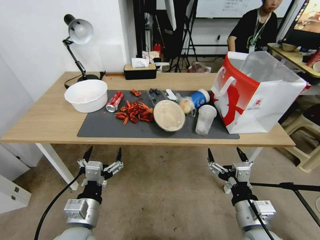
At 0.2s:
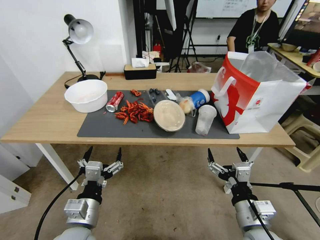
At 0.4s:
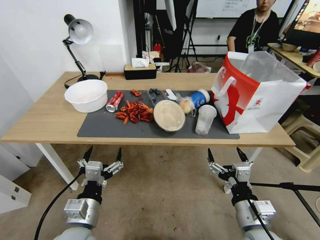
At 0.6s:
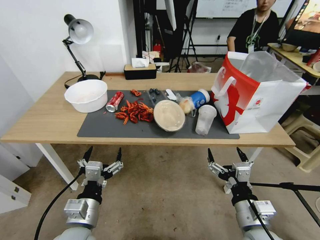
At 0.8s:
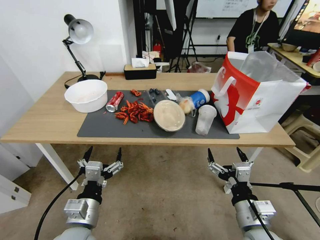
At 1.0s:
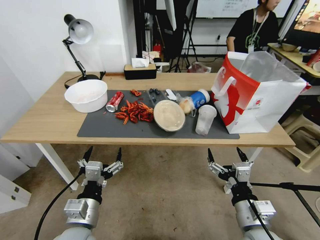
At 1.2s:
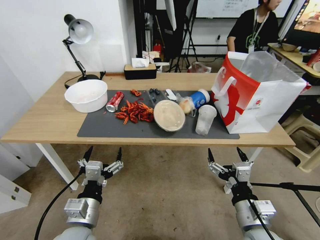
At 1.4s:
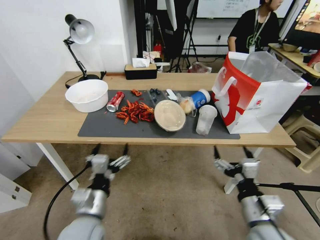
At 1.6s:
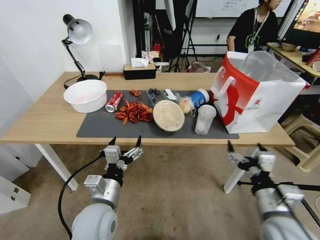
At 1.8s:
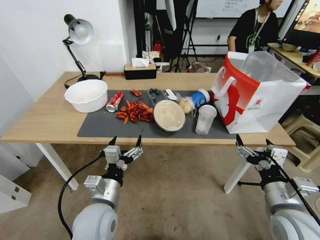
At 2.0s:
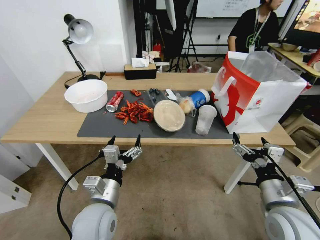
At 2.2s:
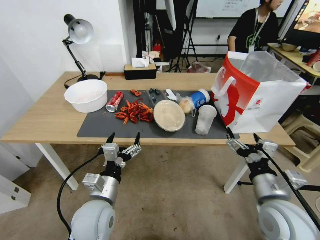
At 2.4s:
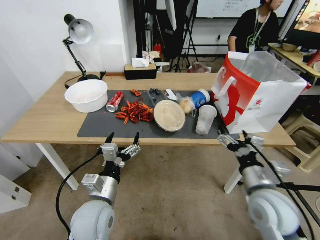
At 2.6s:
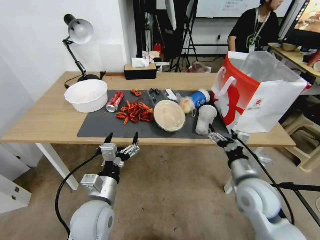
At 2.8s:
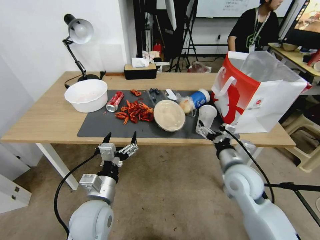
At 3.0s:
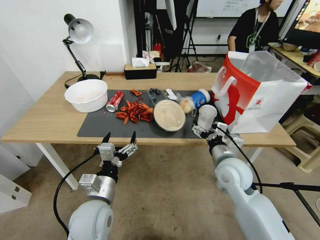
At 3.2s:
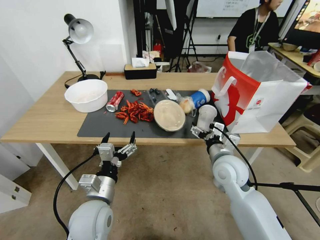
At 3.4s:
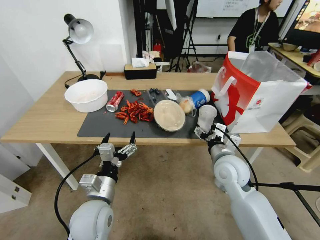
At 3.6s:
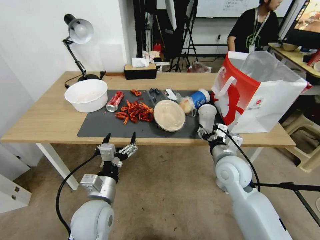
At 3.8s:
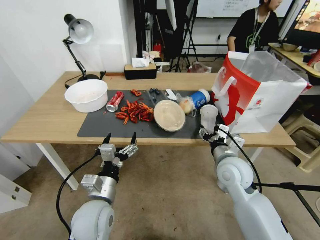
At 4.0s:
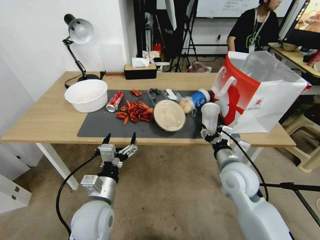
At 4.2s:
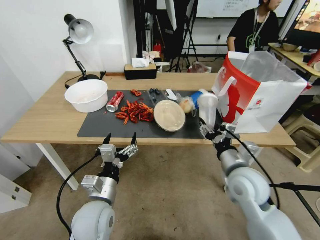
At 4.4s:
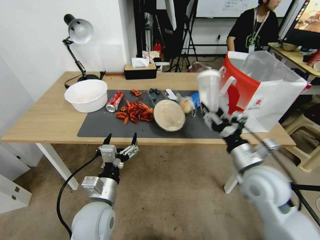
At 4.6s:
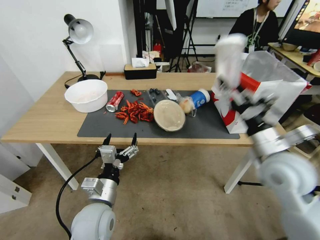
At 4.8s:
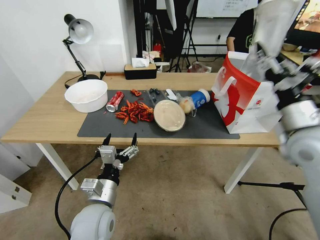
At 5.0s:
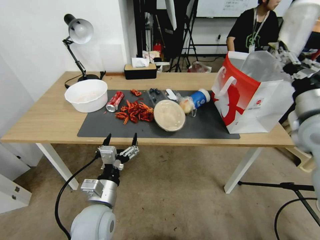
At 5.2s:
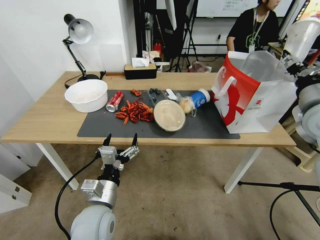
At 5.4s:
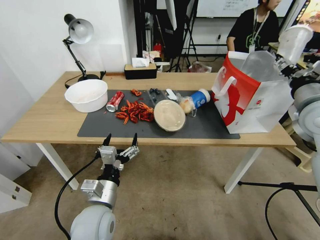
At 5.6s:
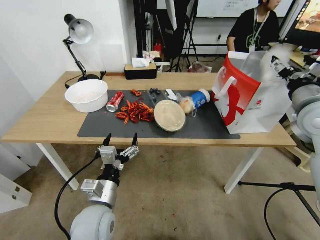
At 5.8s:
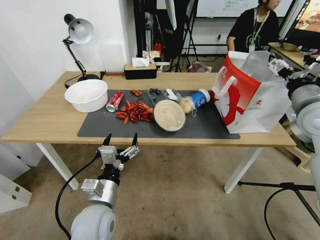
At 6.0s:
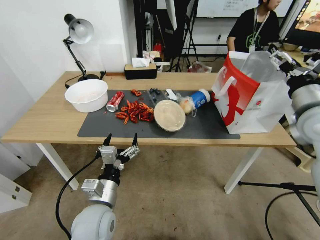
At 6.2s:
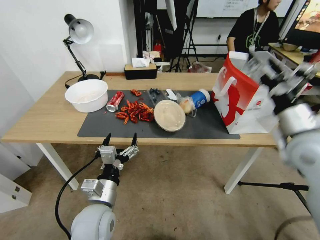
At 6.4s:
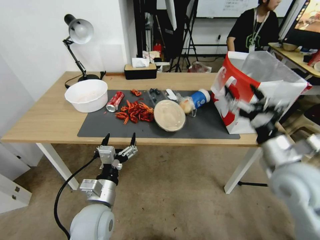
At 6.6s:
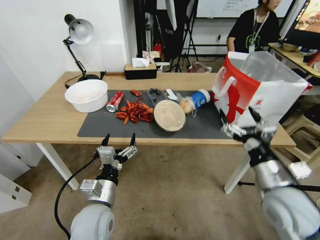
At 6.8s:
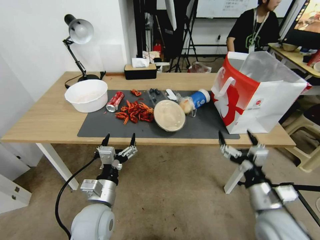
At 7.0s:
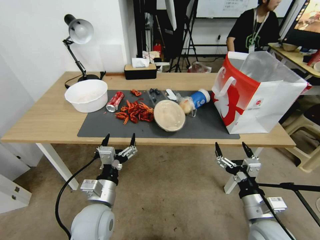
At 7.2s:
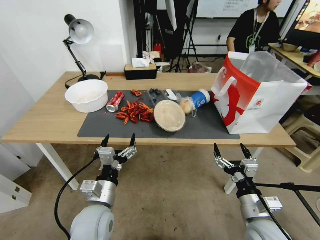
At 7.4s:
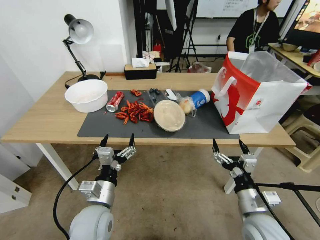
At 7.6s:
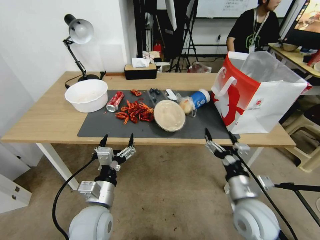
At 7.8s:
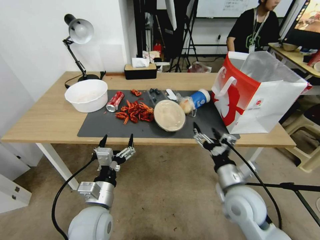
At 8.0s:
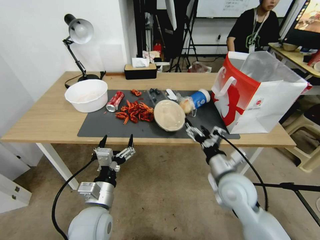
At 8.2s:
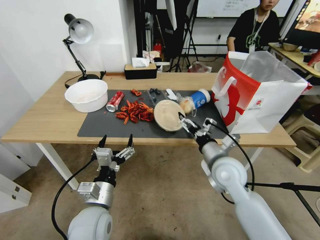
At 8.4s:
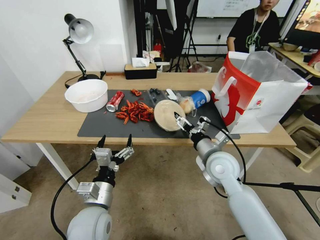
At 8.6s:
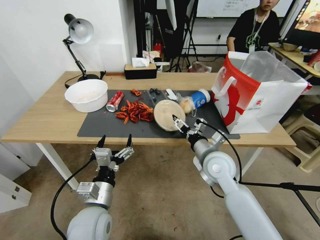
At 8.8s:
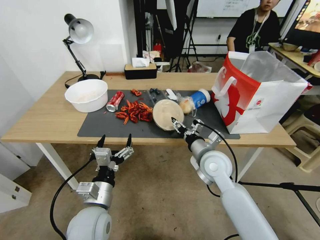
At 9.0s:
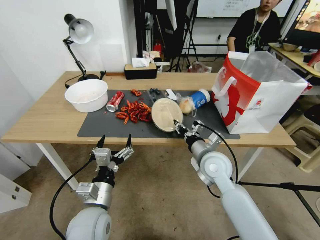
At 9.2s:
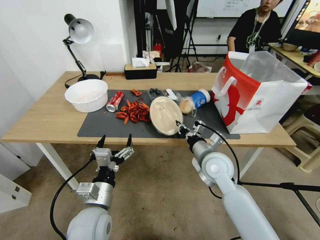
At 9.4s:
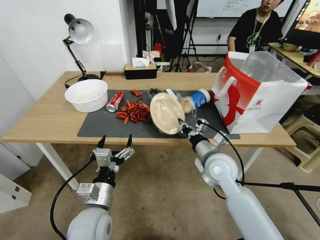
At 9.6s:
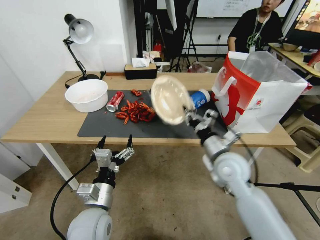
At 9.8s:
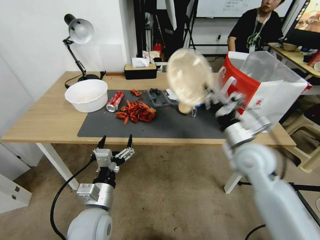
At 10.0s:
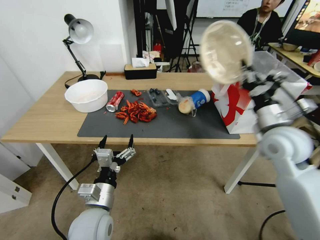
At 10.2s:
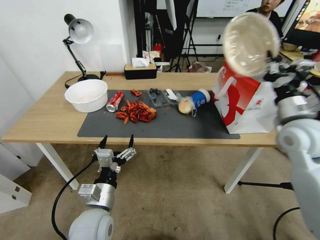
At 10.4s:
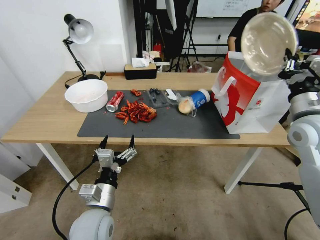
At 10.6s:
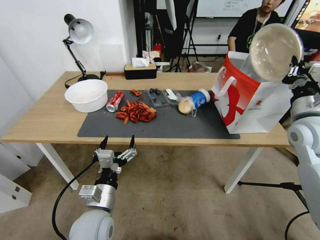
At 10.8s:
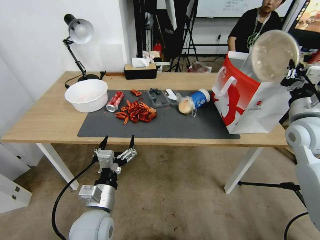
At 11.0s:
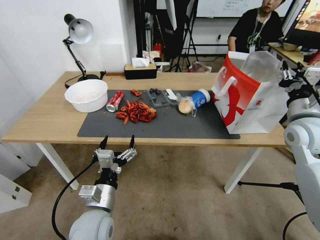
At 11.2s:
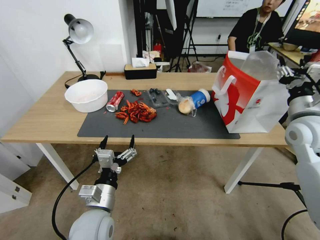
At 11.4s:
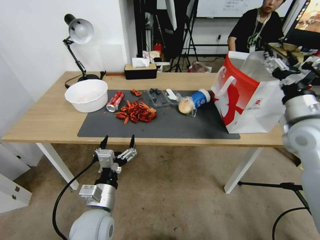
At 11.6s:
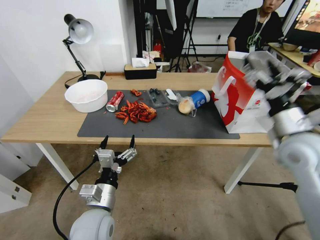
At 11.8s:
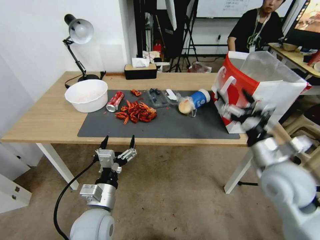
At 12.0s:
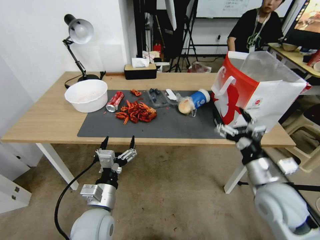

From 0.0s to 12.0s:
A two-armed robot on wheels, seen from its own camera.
From 1.6s to 3.0s: The right gripper moves forward and to the left, approximately 15 cm.
From 3.0s to 4.4s: The right gripper changes place by about 5 cm, and closes up.
From 4.4s to 6.0s: The right gripper travels upward, to the right and forward by approximately 20 cm, and opens.
From 6.0s to 7.6s: The right gripper heads downward, backward and to the left, covering approximately 30 cm.
From 7.6s to 9.0s: The right gripper travels forward and to the left by some 15 cm, and closes its fingers.
From 9.0s to 10.4s: The right gripper shifts roughly 25 cm to the right and upward.
From 10.4s to 12.0s: The right gripper moves downward, backward and to the left, some 20 cm, and opens up.

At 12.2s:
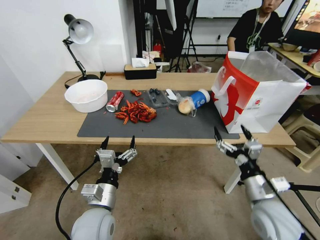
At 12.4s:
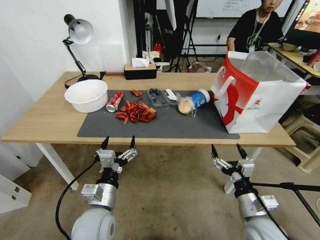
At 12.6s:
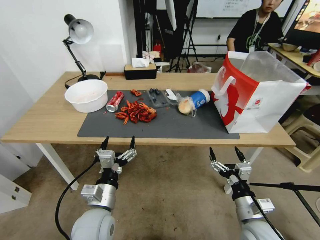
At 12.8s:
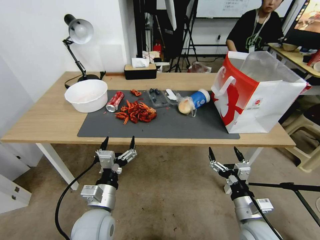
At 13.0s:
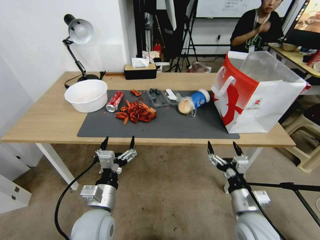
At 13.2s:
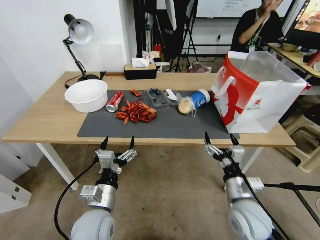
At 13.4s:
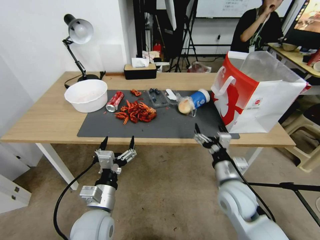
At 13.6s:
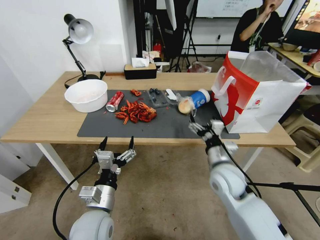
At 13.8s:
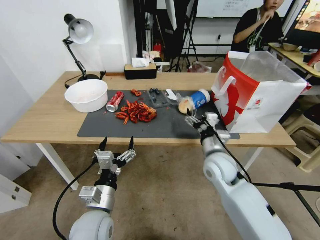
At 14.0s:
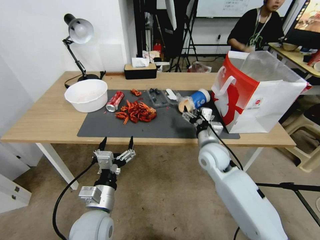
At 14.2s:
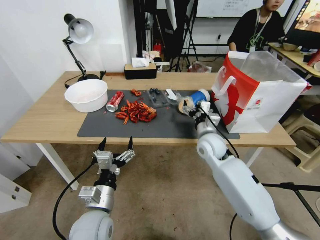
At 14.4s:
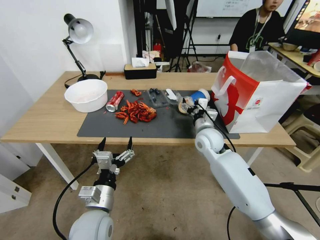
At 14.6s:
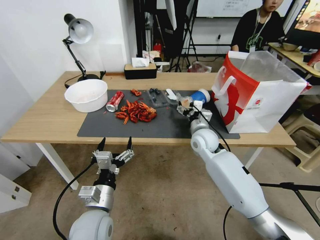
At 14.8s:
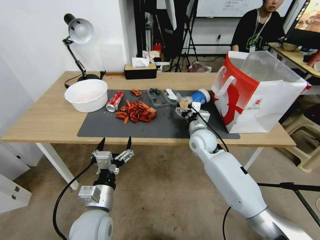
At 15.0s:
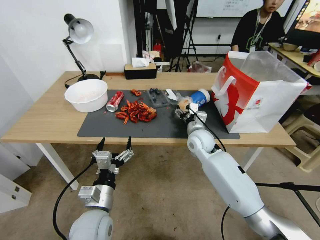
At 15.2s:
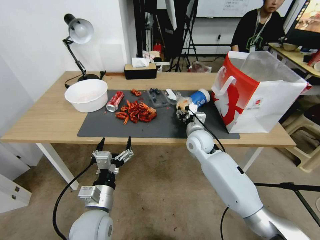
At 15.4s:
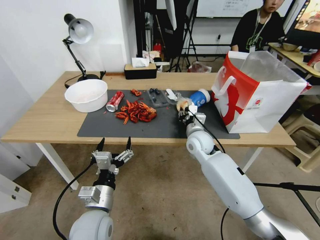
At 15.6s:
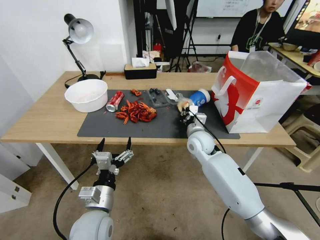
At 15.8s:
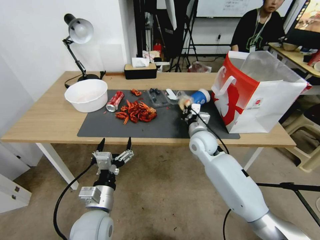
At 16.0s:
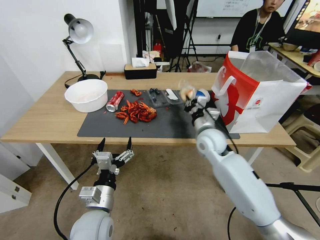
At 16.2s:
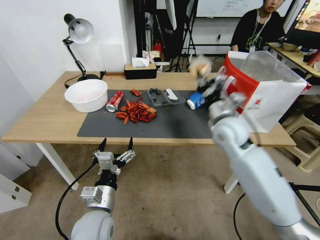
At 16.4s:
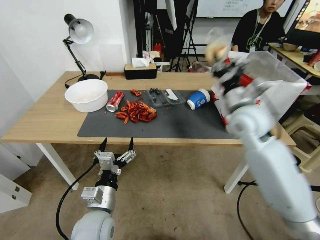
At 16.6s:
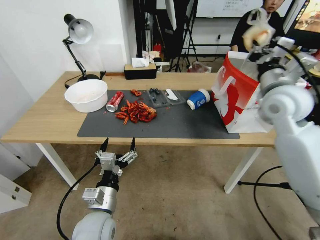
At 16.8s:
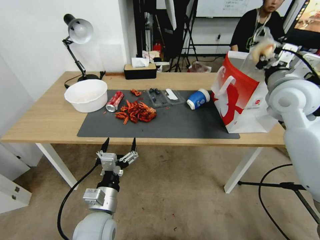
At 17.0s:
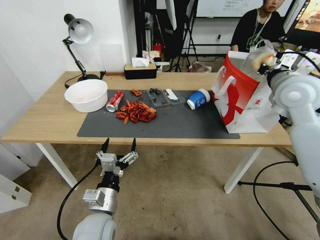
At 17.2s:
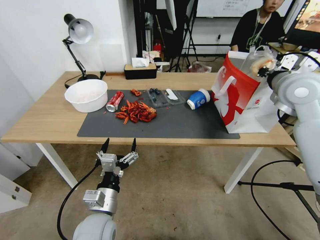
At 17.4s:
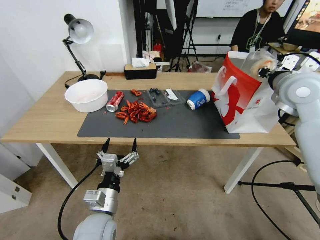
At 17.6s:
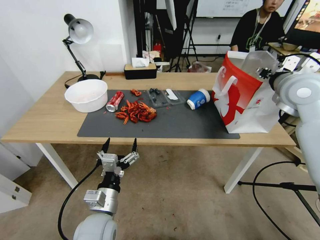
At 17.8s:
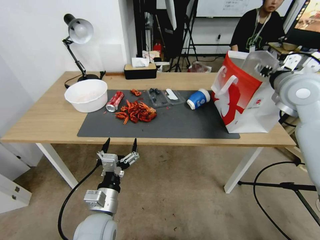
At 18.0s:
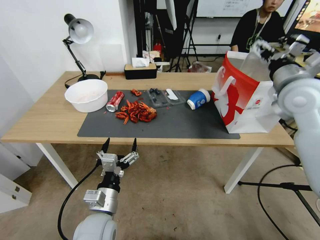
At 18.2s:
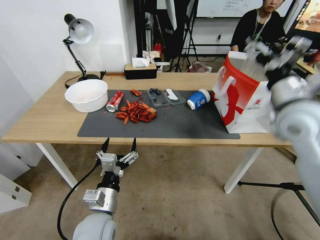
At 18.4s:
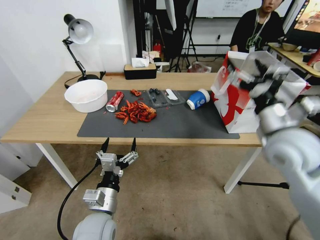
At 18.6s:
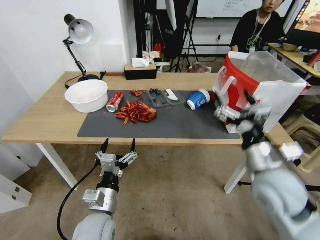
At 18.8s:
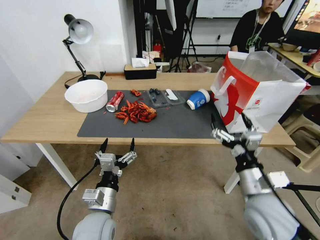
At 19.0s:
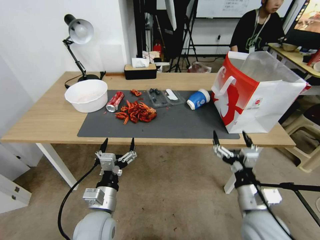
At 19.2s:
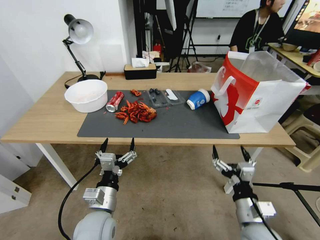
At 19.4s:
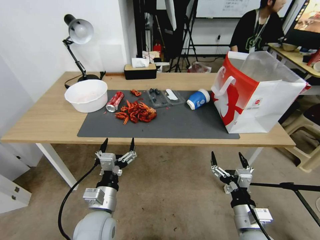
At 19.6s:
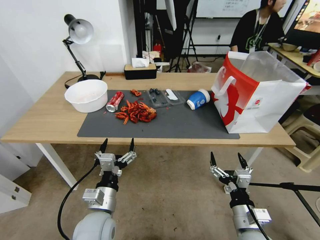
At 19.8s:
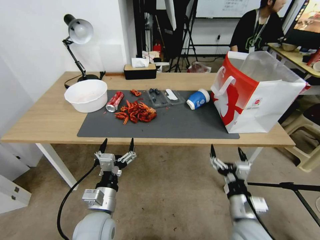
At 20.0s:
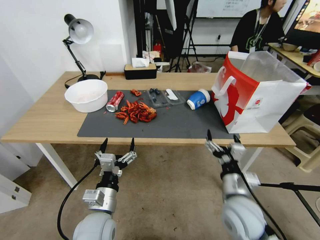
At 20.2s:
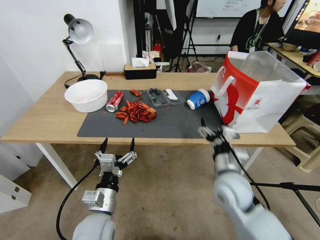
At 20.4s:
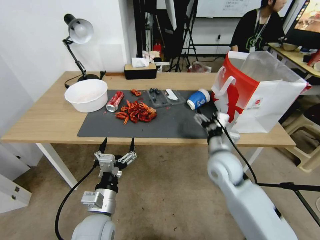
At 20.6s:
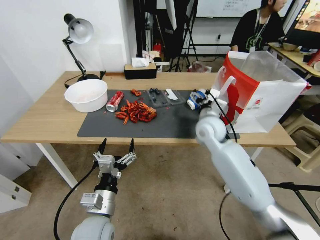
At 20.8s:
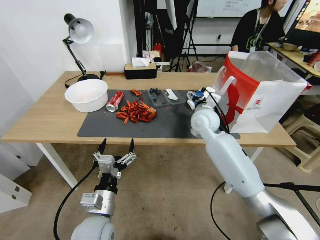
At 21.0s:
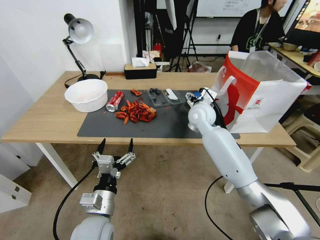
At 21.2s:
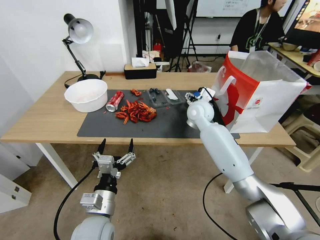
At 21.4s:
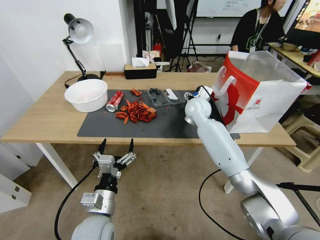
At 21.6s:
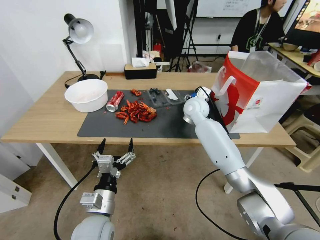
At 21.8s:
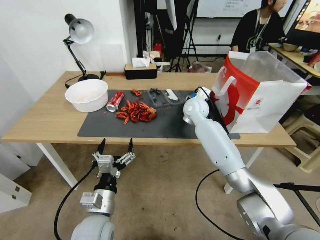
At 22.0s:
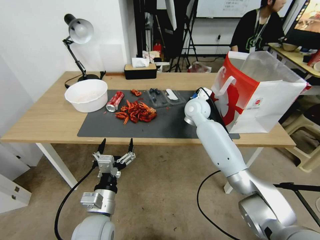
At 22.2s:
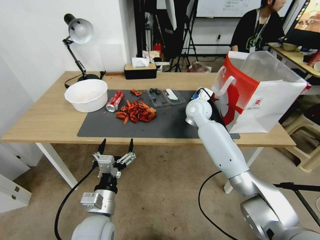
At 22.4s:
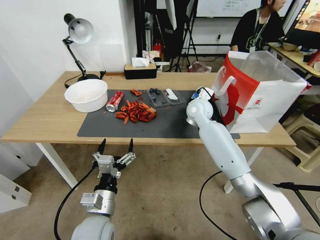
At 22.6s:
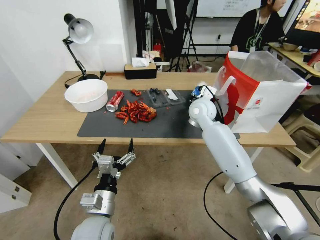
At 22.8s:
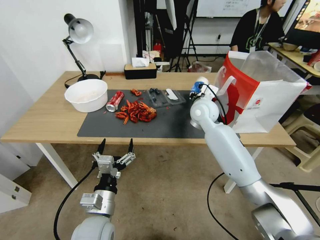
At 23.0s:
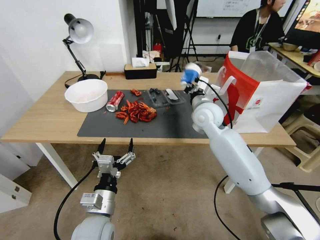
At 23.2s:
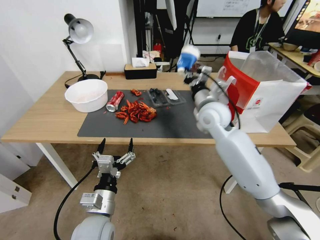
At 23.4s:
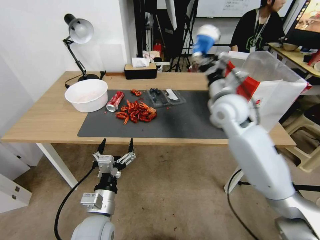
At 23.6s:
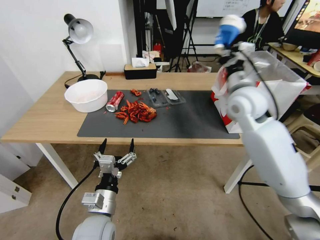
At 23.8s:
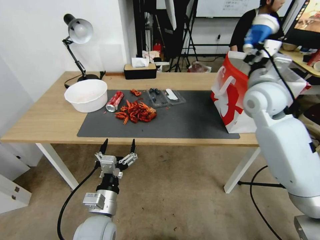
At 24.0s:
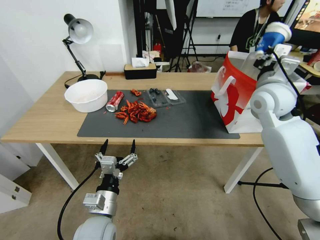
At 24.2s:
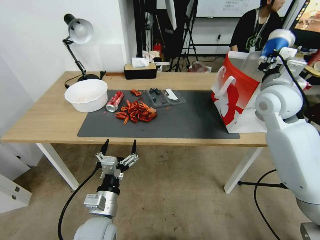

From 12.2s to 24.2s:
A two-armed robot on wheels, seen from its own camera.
From 12.2s to 13.8s: The right gripper is displaced forward and to the left by some 15 cm.
From 13.8s to 15.2s: The right gripper is displaced forward by approximately 10 cm, and closes its fingers.
From 15.2s to 16.6s: The right gripper heads upward and to the right, covering roughly 25 cm, and closes its fingers.
From 16.6s to 18.2s: The right gripper is displaced backward by approximately 5 cm, and opens up.
From 18.2s to 19.8s: The right gripper shifts roughly 35 cm downward and backward.
From 19.8s to 21.2s: The right gripper travels forward by approximately 35 cm.
From 21.2s to 22.6s: The right gripper closes.
From 22.6s to 24.2s: The right gripper is displaced to the right, upward and backward by about 20 cm.
